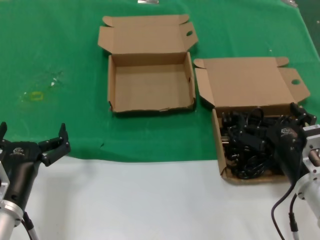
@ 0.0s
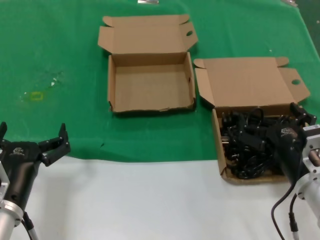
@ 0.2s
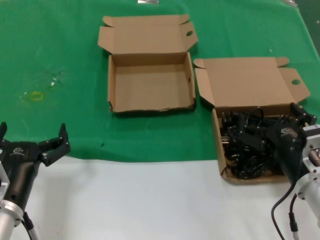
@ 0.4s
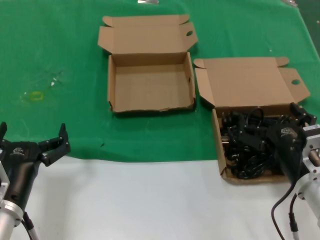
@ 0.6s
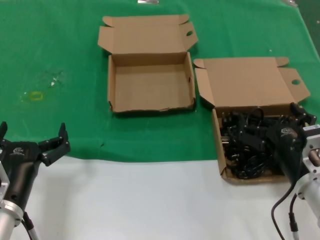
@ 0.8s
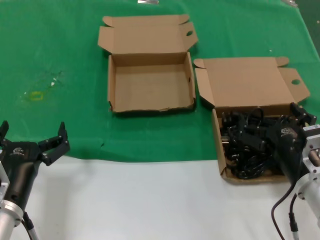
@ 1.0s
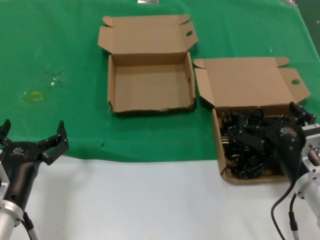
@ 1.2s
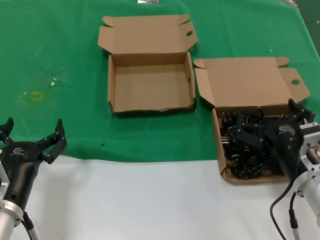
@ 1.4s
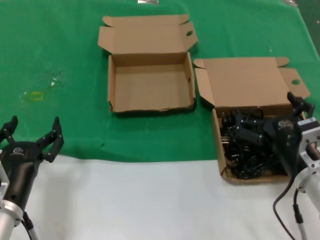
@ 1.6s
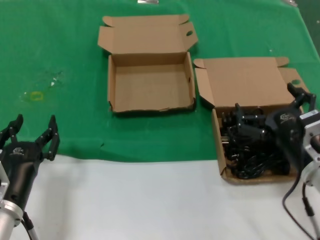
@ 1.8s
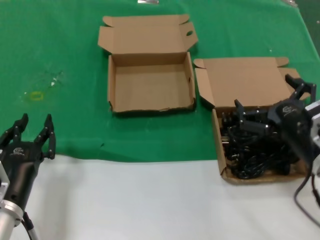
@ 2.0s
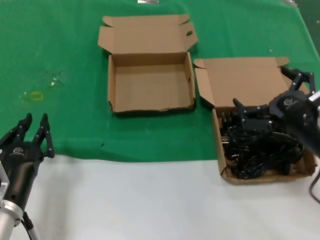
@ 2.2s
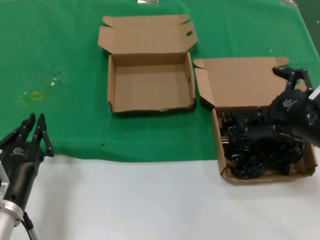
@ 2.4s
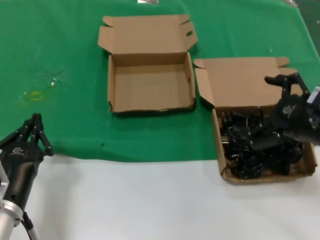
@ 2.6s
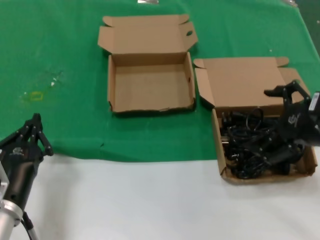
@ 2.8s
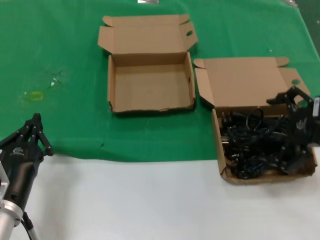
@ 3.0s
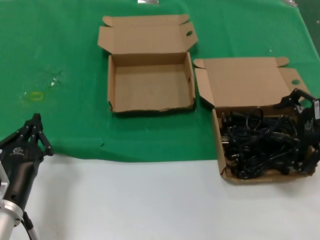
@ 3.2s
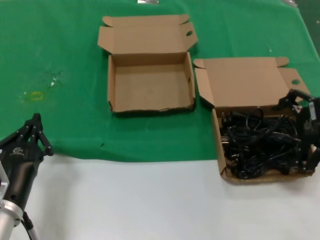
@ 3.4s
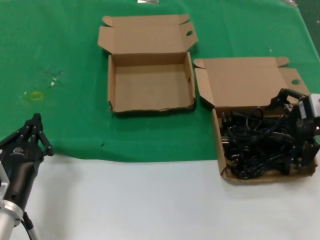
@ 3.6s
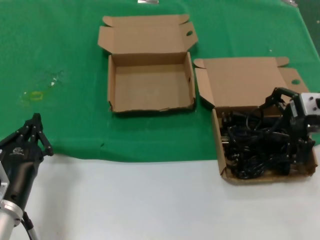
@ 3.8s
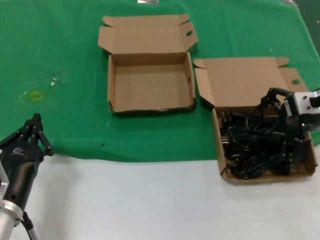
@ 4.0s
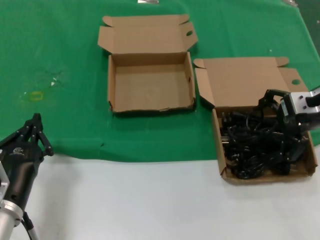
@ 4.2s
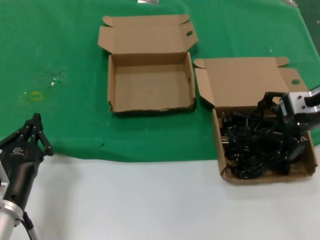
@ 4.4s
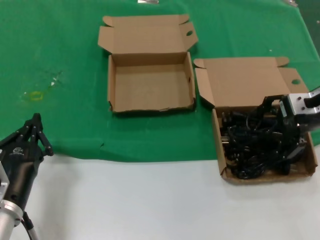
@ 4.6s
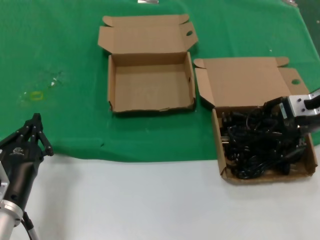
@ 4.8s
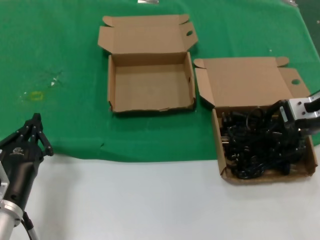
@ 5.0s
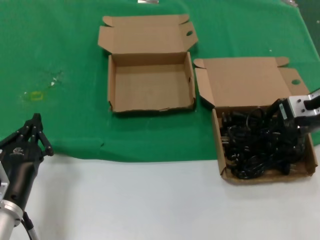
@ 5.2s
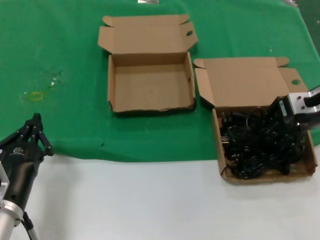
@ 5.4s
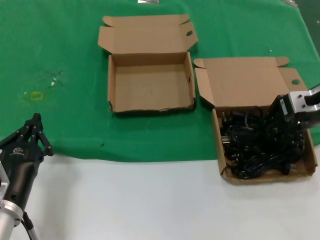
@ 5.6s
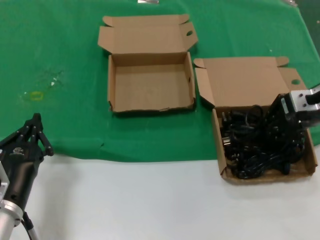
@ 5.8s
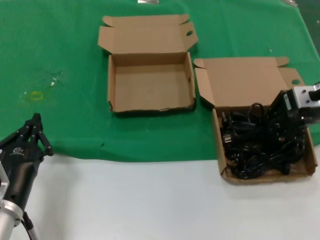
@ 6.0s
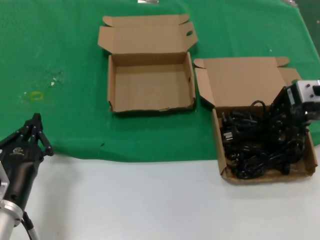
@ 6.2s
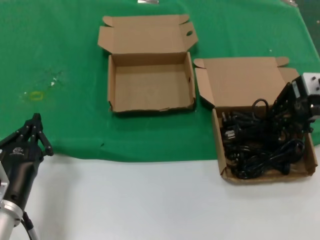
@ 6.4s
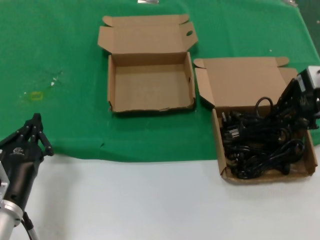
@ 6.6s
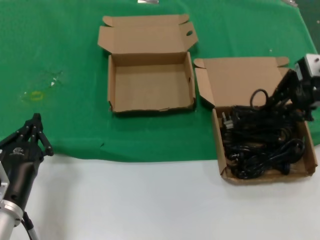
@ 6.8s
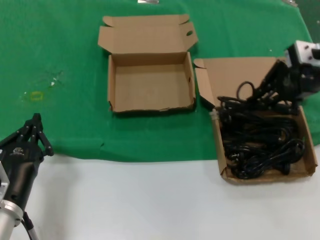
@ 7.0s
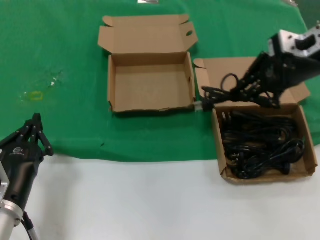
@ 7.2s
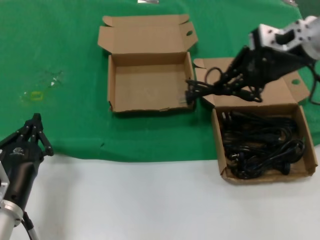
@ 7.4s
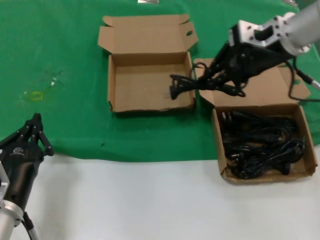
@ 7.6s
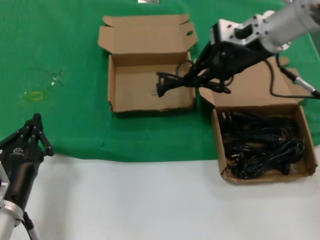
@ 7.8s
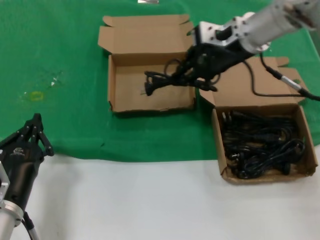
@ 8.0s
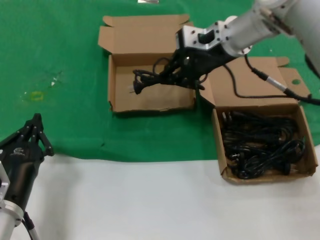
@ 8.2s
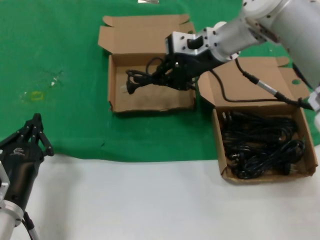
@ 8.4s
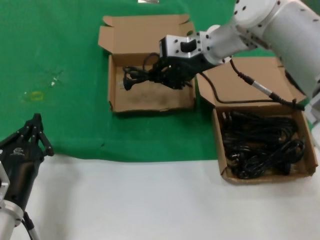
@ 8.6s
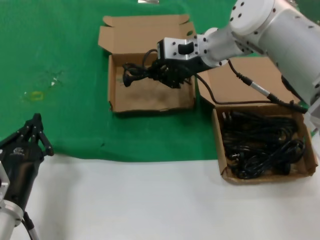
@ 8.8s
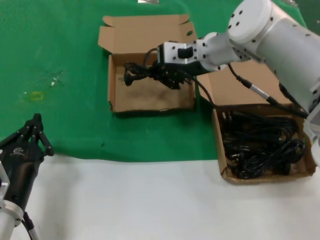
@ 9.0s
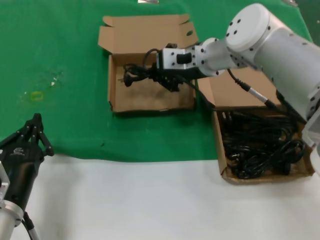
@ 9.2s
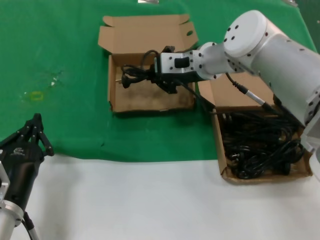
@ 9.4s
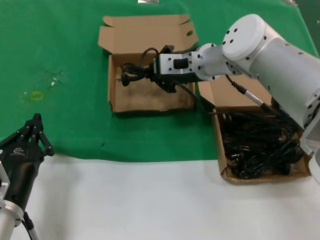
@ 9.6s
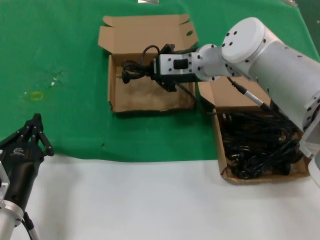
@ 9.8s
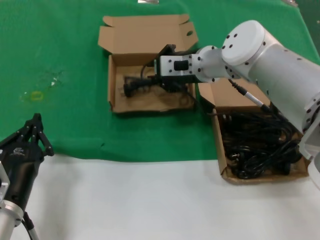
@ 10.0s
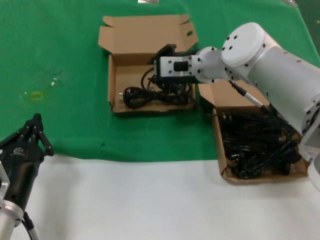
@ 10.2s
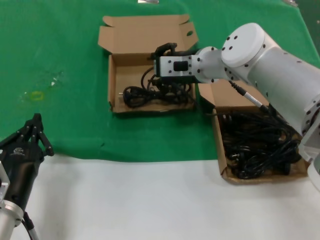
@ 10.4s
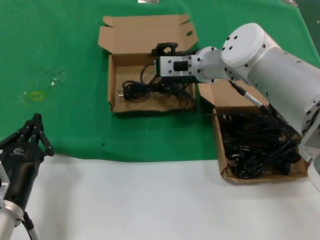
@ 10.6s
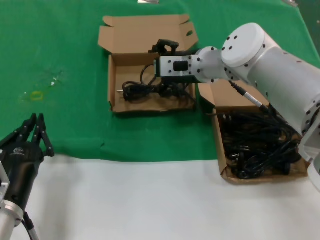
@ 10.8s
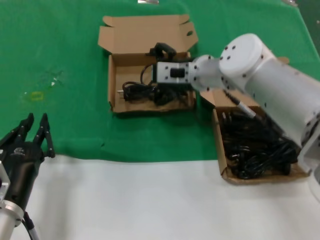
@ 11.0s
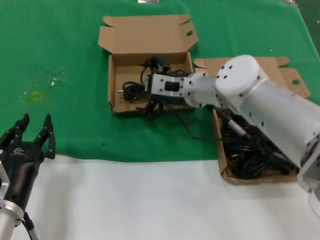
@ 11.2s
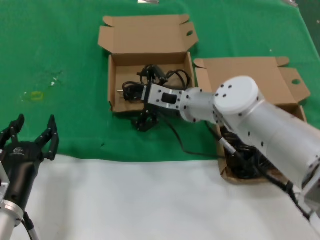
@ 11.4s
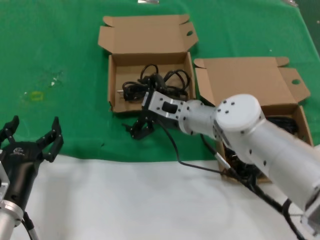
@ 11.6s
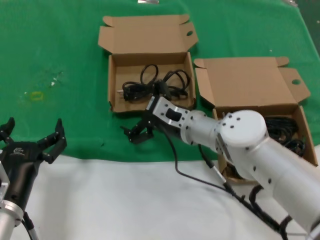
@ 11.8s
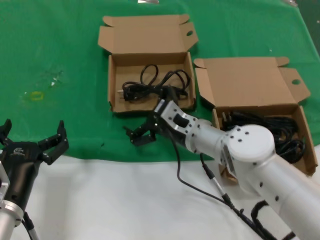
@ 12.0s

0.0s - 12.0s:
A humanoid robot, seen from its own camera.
Task of the whole recording: take the parts from the box containing them and put them into an empty box.
Step, 0.0s - 5.6s: Grasp the data cable.
Step, 5.8s - 10.6s: Place the data cable in the another box.
0.0s - 1.6s: The hands move only a little.
1.6s - 3.0s: The right hand shifts roughly 20 cm upward and to the right.
3.0s - 4.4s: The right hand heads forward, covering some 10 cm.
4.4s - 6.0s: Neither hand changes place.
6.0s - 7.6s: The right hand goes about 15 cm to the left, upward and forward.
7.6s - 9.0s: The right hand shifts some 15 cm to the left and downward.
9.0s - 10.4s: The hands stay close to where they were, moving slightly.
10.4s - 12.0s: The right hand goes approximately 15 cm downward and backward.

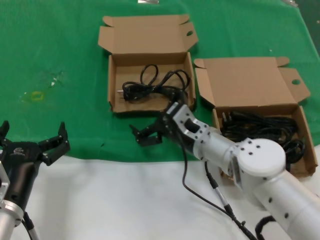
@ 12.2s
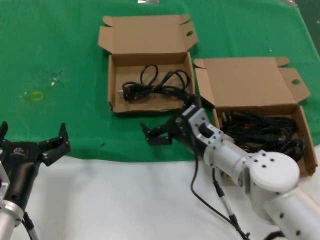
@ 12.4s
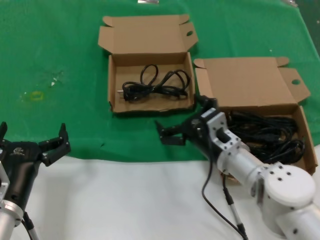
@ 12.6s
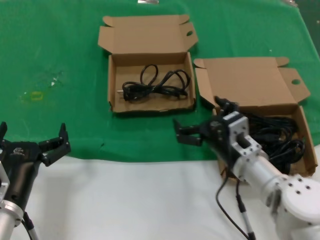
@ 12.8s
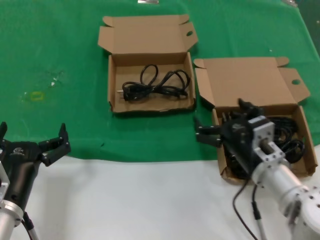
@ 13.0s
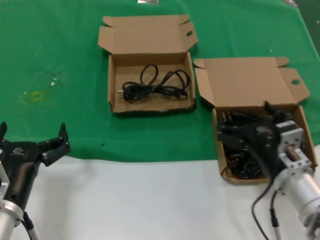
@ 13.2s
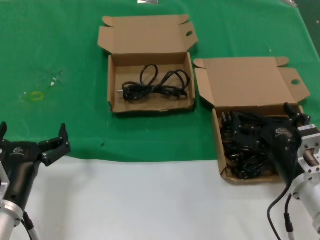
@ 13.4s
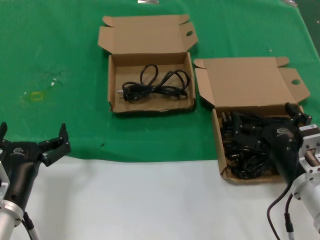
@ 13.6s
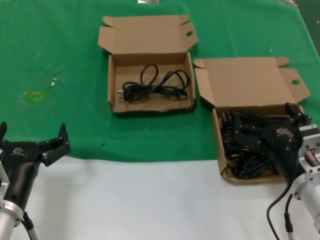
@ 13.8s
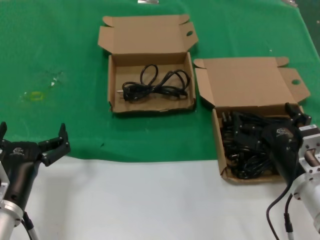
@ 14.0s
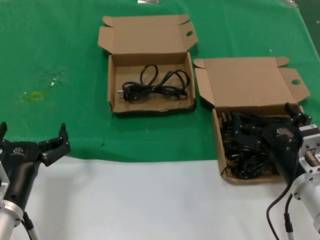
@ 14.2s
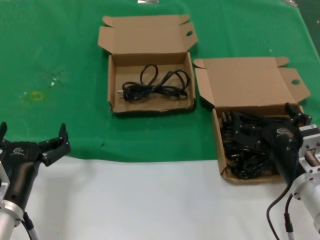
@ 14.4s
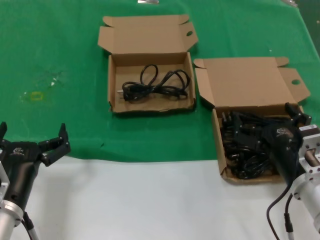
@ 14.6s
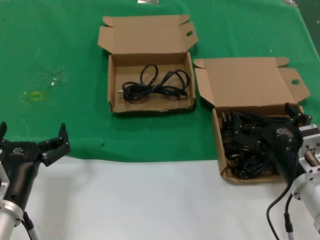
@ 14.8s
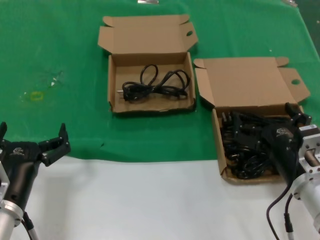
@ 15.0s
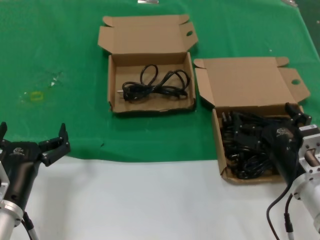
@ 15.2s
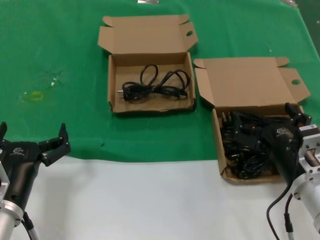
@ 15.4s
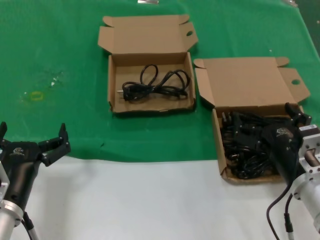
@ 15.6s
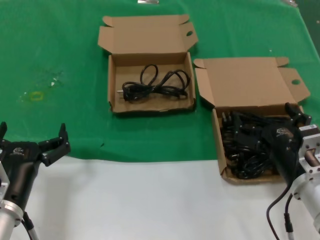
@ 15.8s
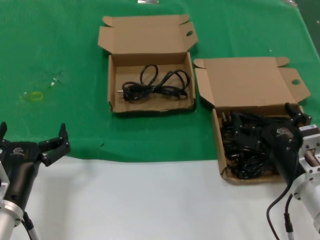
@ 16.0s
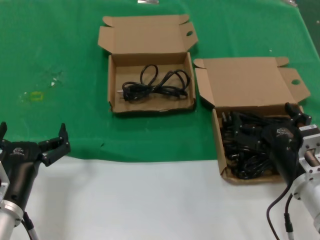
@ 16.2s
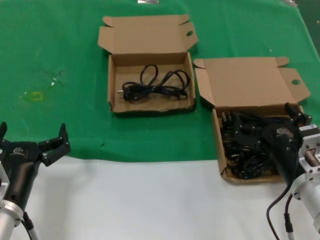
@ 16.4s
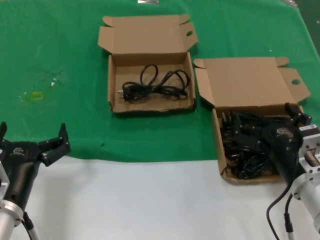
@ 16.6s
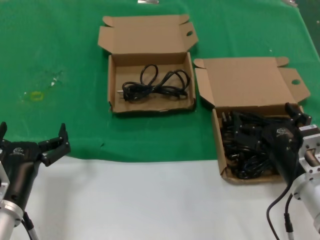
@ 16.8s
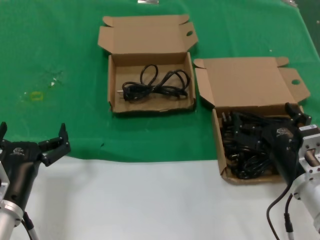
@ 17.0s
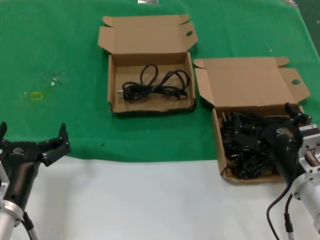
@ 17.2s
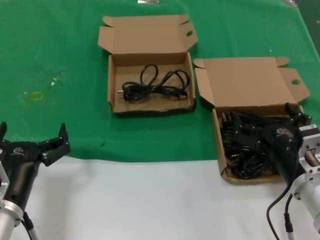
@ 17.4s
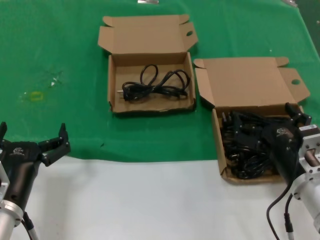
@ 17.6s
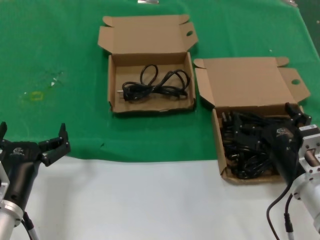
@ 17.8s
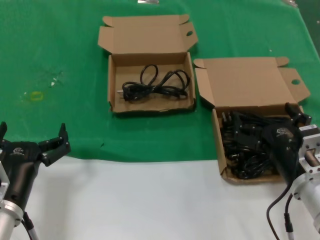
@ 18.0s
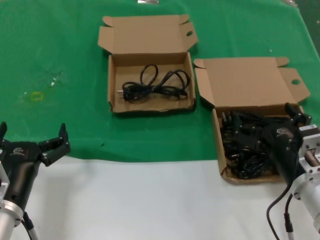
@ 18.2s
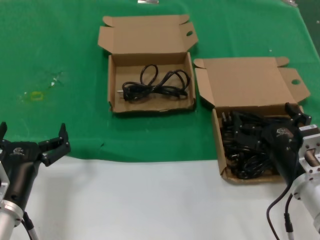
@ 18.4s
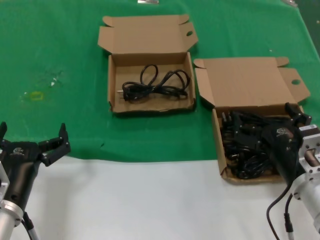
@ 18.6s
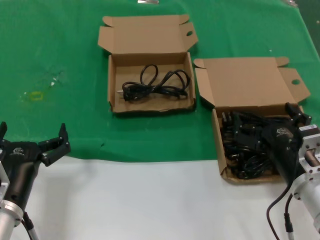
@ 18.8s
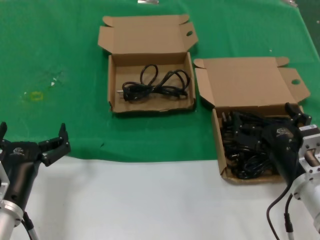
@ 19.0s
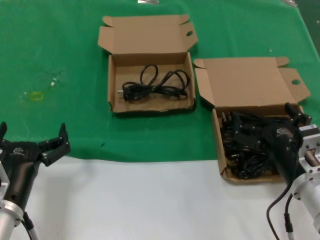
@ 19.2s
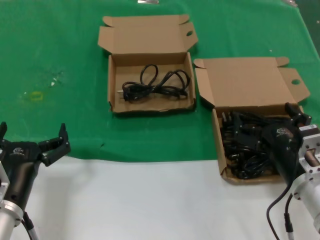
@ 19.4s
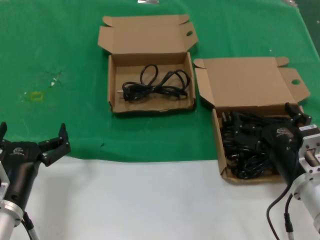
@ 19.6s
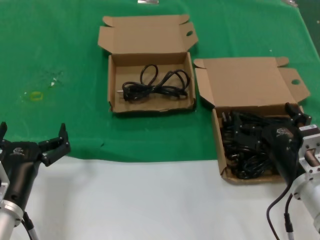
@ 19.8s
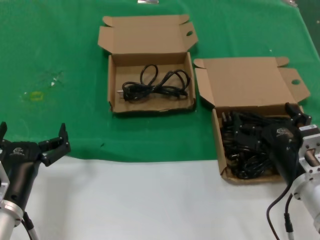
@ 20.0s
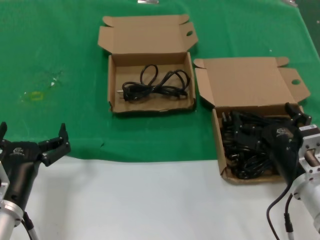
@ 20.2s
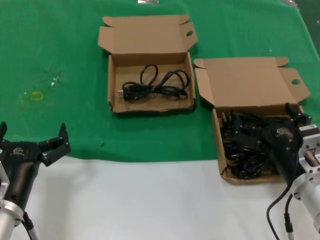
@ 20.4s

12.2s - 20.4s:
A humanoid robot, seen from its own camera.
Task of the whole recording: take the parts from the box containing them and put them into an empty box.
12.2s - 13.8s: The right hand moves to the right and backward, roughly 20 cm.
13.8s - 20.4s: The two hands keep their place.

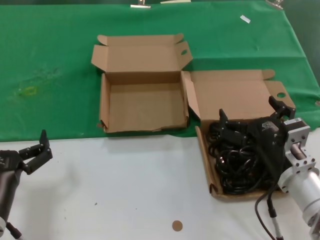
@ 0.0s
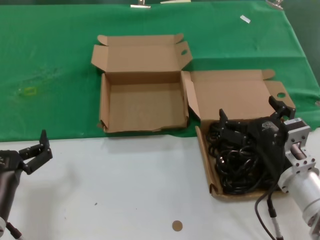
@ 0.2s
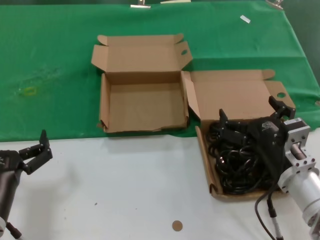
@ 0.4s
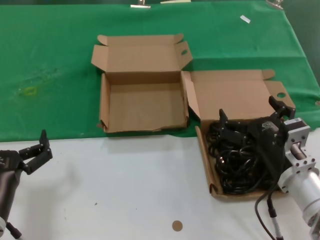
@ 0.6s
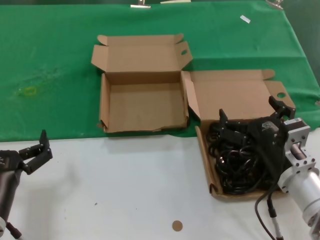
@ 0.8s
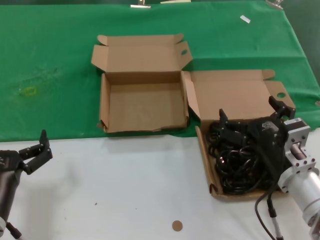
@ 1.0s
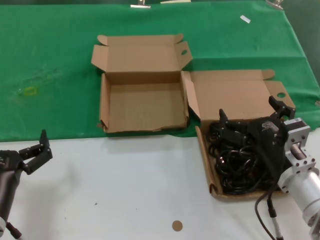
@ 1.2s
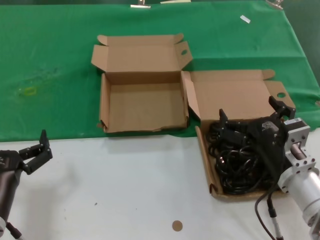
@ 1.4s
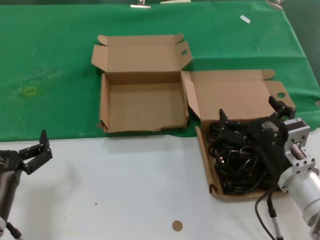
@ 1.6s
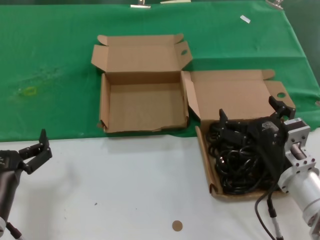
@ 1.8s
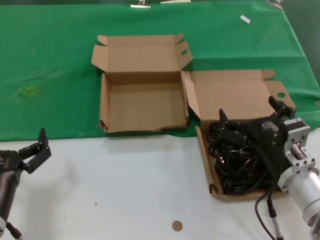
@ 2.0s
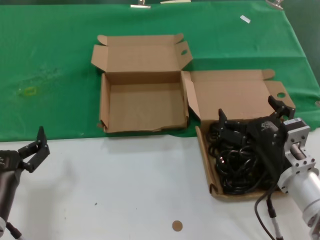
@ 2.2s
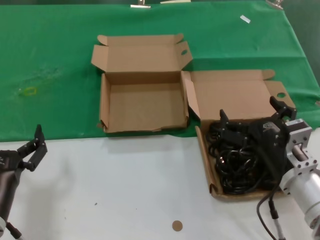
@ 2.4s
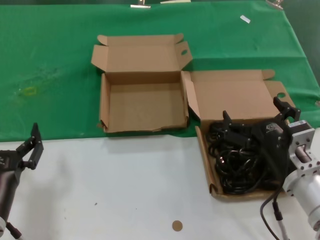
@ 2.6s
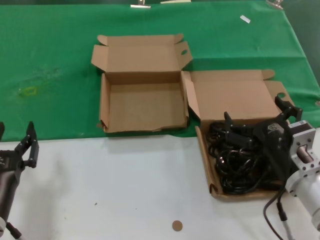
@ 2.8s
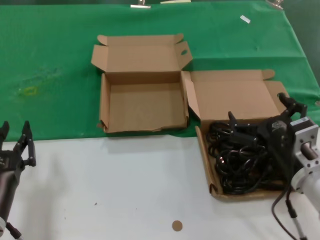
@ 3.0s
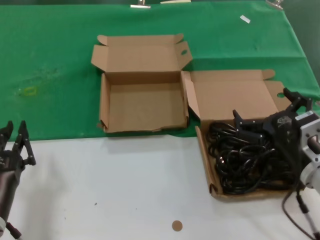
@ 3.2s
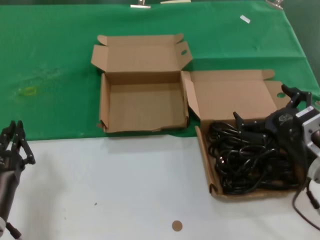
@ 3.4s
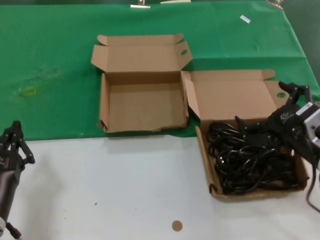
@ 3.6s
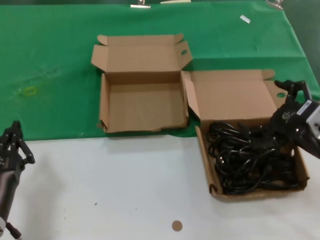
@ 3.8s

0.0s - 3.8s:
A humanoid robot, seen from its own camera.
Task of the whole recording: take the parts from the box containing them and put them into an empty box.
0.0s - 2.6s: Neither hand changes place.
2.6s - 3.8s: The right hand is displaced to the right and upward by about 10 cm.
